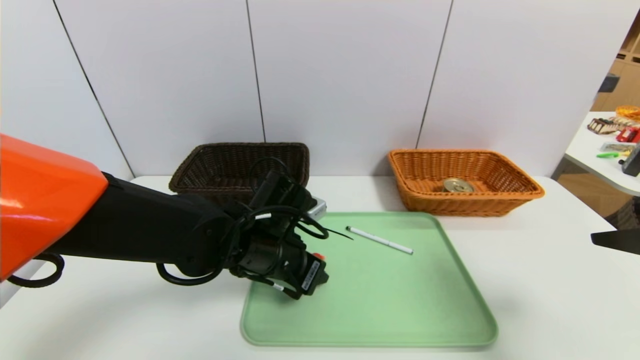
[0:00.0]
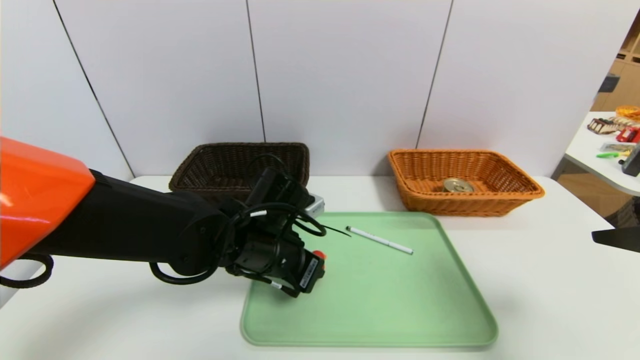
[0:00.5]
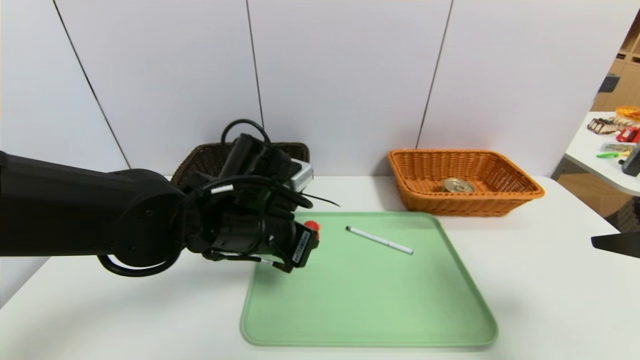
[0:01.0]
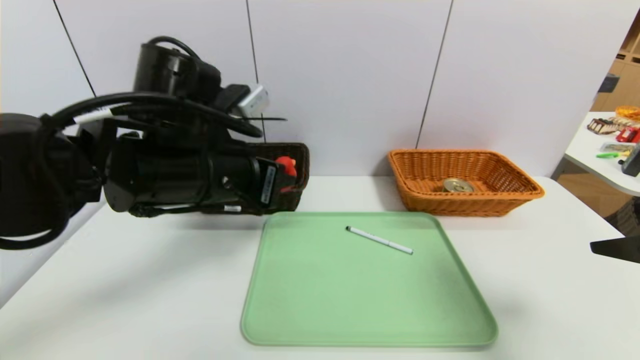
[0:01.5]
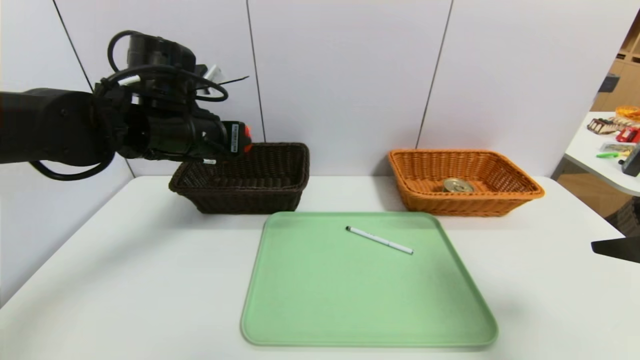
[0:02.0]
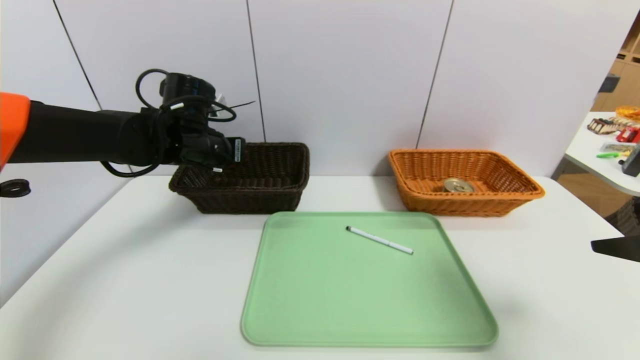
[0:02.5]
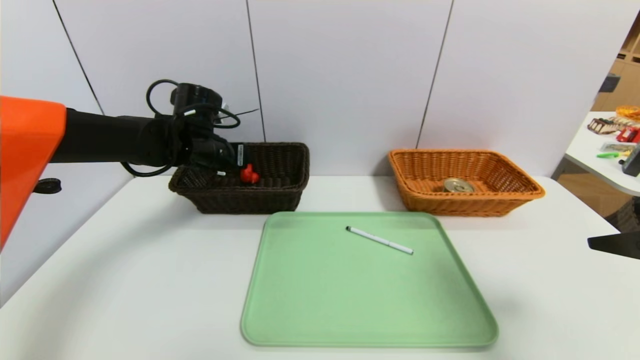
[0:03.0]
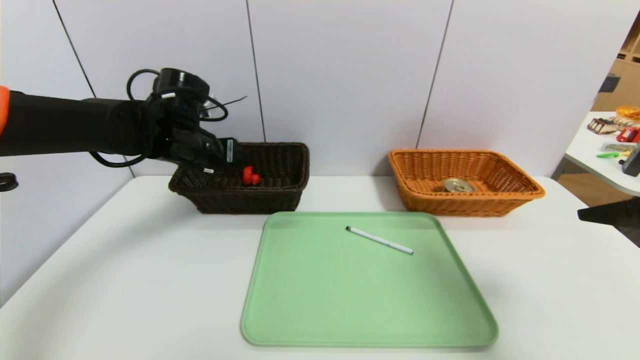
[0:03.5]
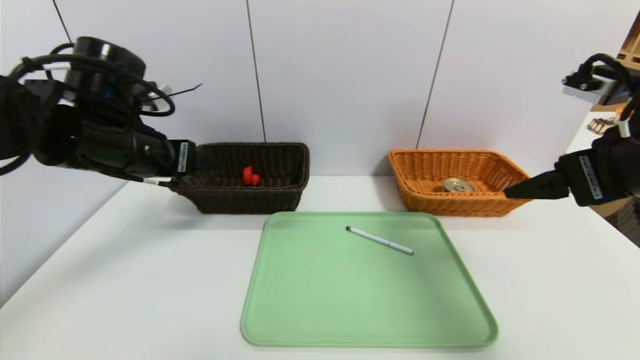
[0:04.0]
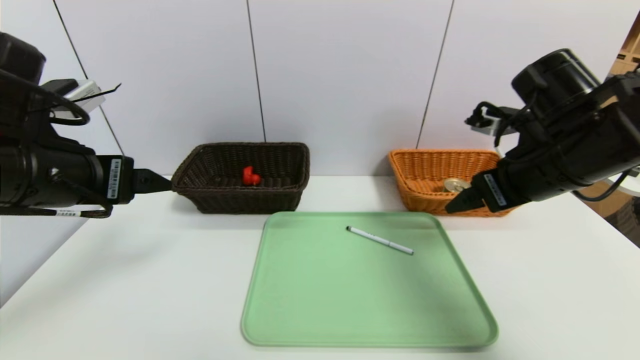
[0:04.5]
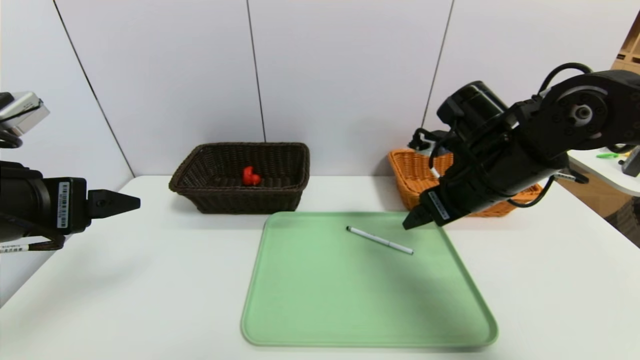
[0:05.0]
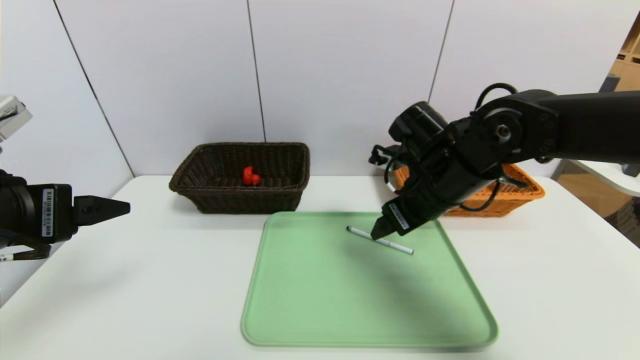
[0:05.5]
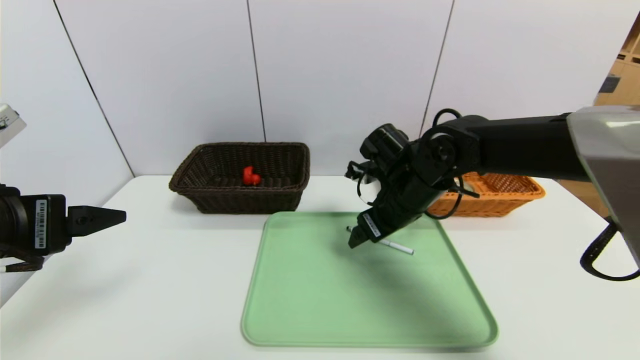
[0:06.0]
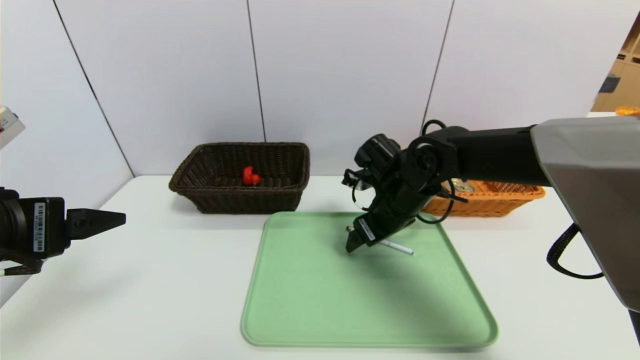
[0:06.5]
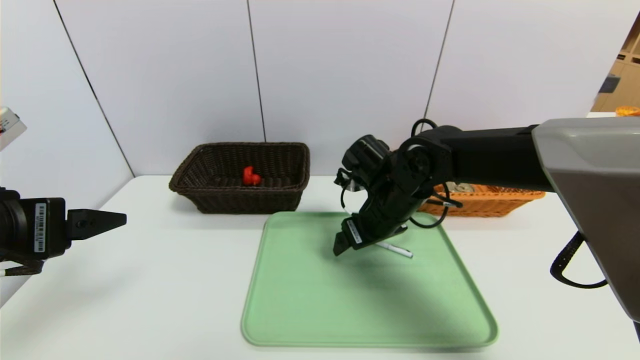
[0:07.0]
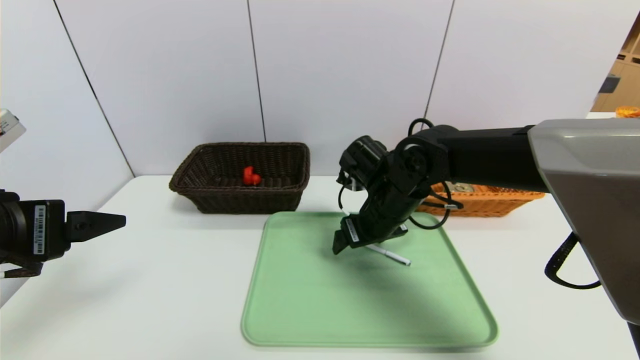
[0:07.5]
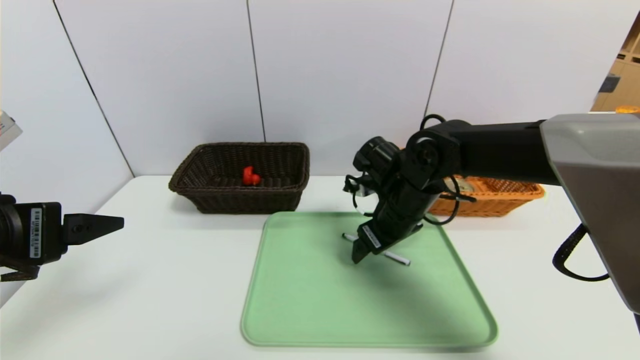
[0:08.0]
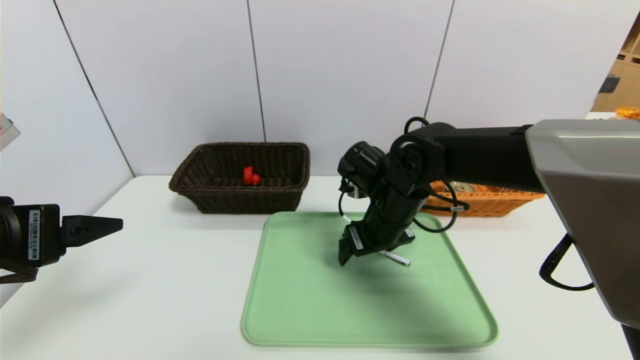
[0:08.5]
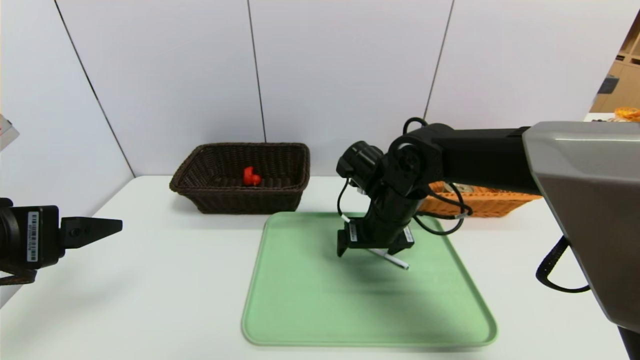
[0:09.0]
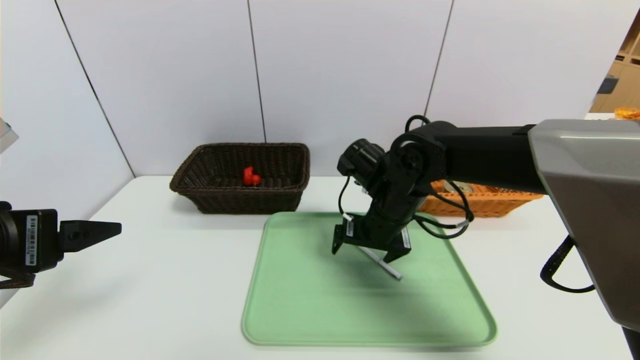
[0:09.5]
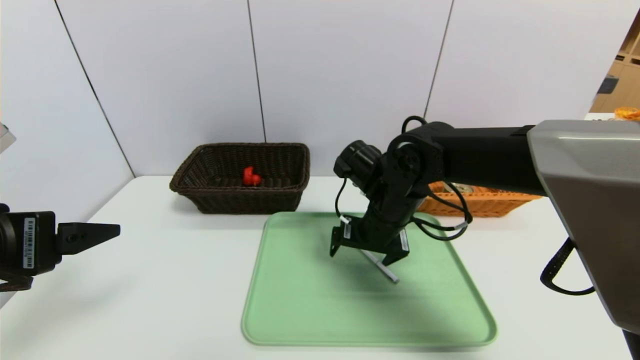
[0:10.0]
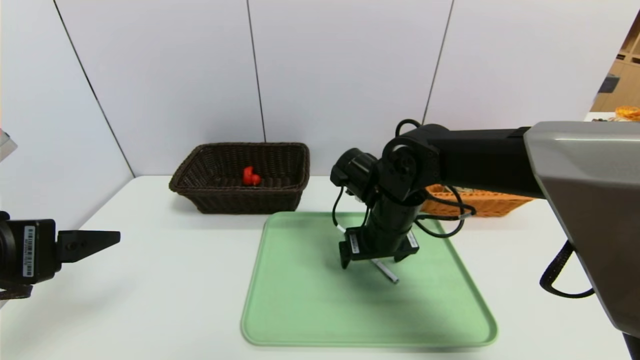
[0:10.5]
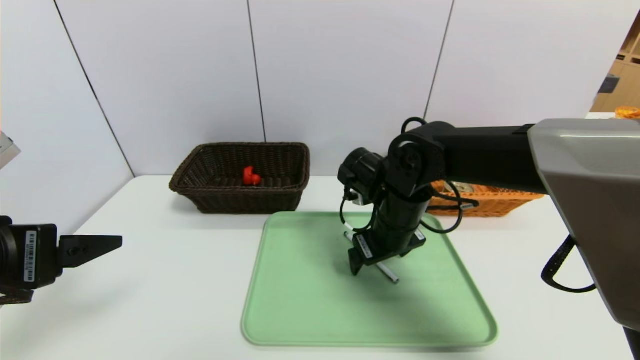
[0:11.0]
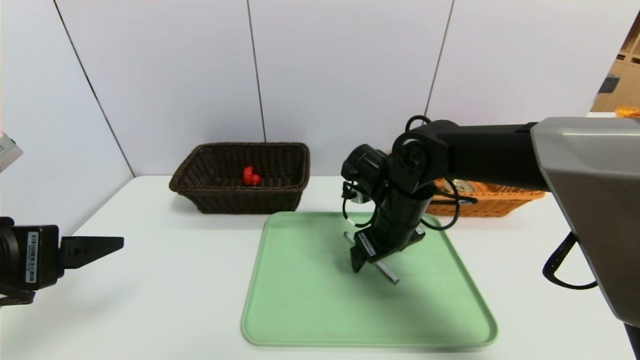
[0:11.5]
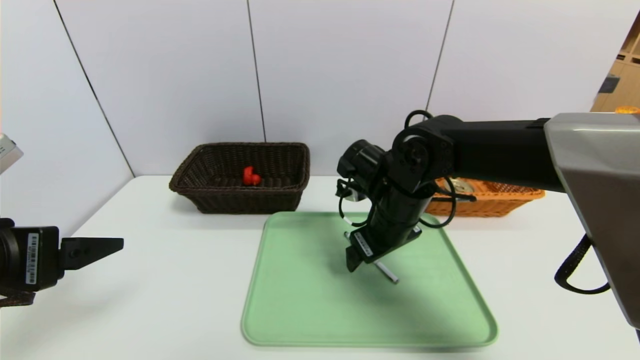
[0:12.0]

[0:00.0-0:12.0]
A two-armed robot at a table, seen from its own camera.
Task of the whole recording: place the food in the right basket with the right gripper, and place the non food items in the left basket with the left gripper.
Step, 0:00.0 to 0:03.0: Grasp the red duck and put it in the left basket.
0:00.0 to 0:02.0: The left gripper travels upward, to the left and forward by some 20 cm.
0:02.0 to 0:04.0: The left gripper is displaced to the left by roughly 5 cm, and opens up. The right gripper shifts roughly 10 cm forward.
0:04.0 to 0:06.0: The left gripper heads backward, covering roughly 15 cm. Meanwhile the right gripper travels to the left, forward and downward by approximately 25 cm.
0:06.0 to 0:08.0: The grippers move only a little.

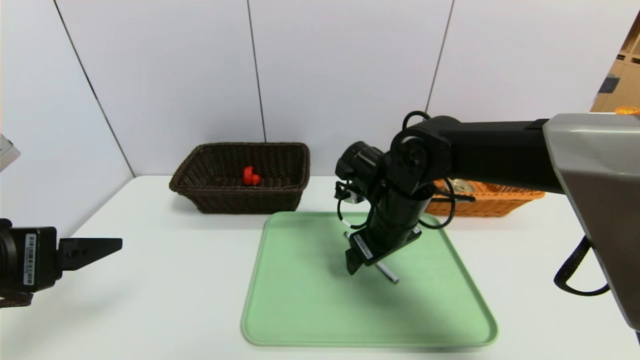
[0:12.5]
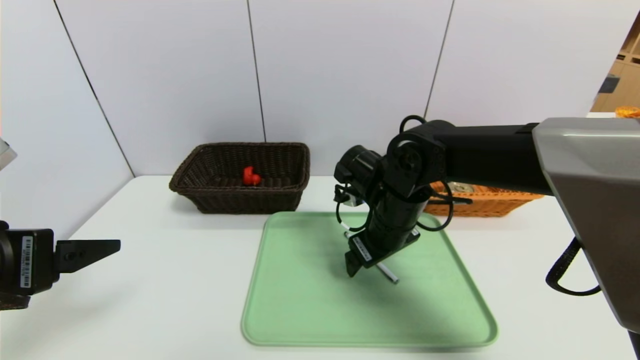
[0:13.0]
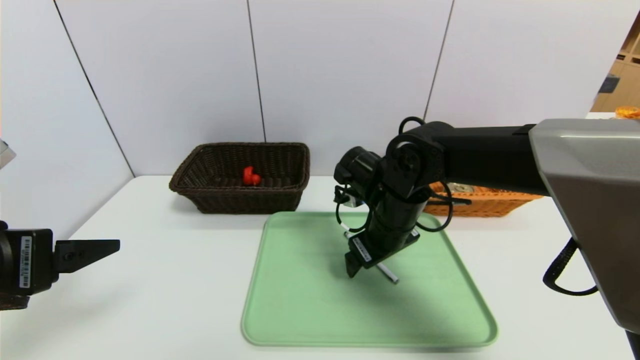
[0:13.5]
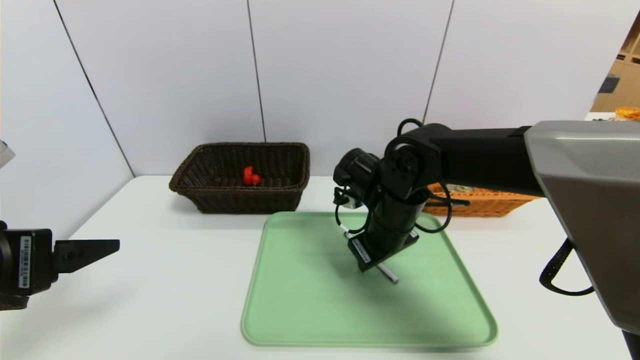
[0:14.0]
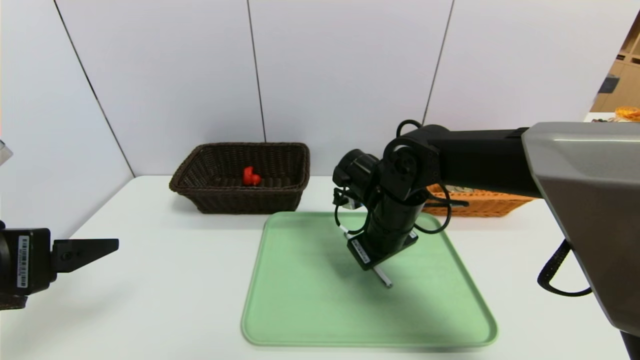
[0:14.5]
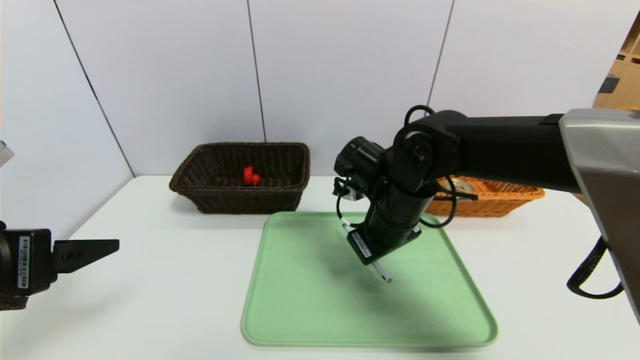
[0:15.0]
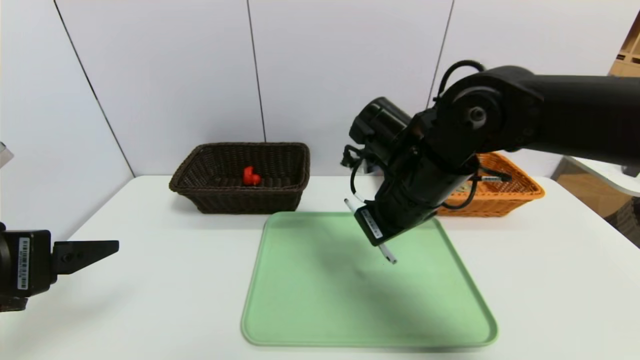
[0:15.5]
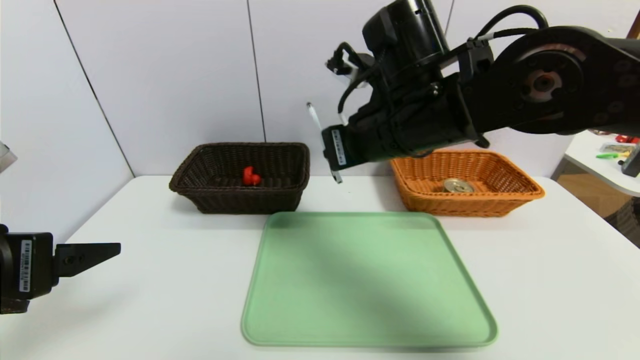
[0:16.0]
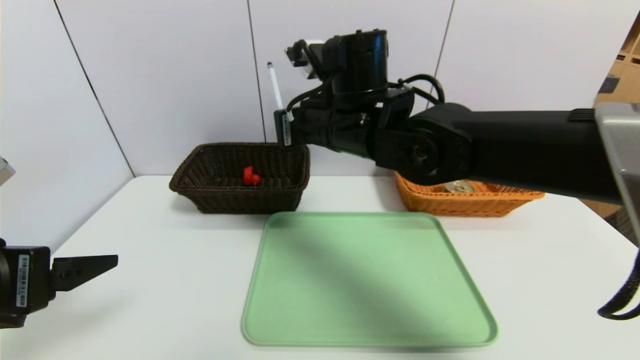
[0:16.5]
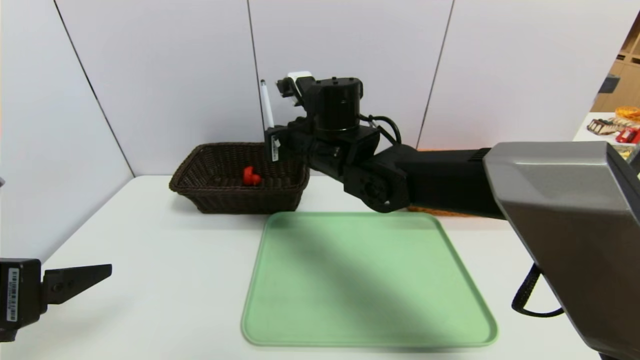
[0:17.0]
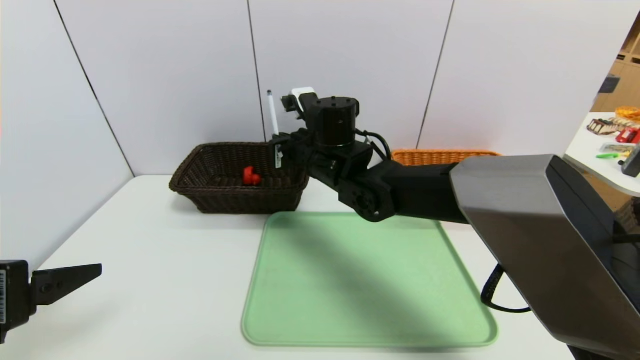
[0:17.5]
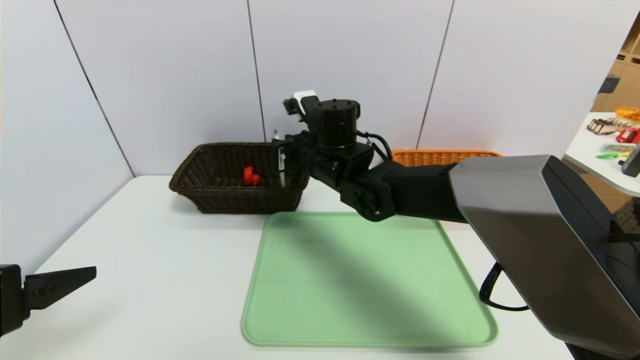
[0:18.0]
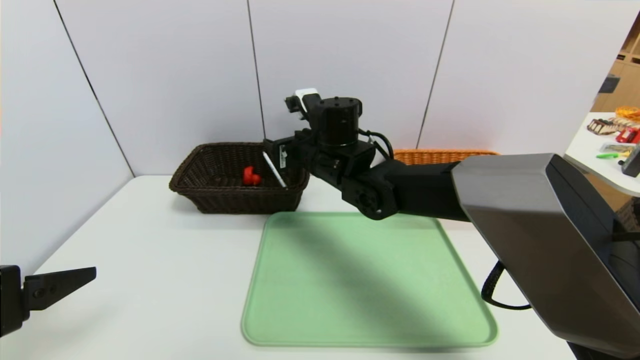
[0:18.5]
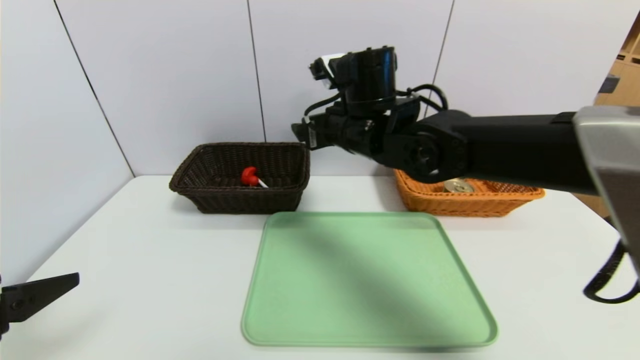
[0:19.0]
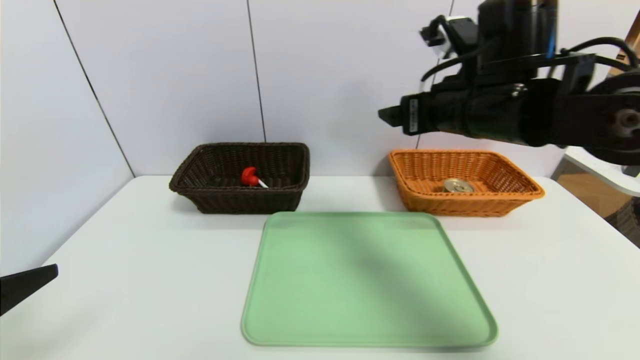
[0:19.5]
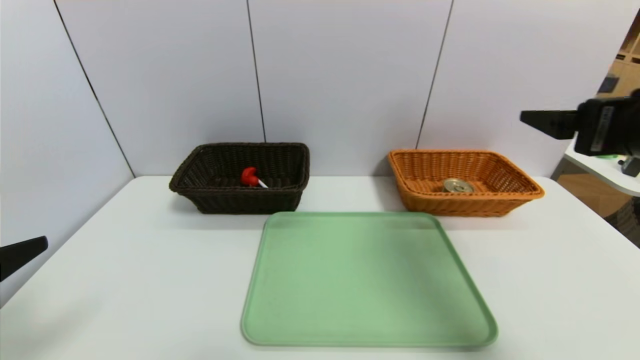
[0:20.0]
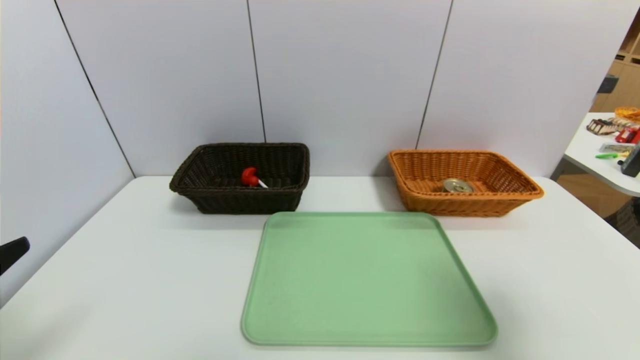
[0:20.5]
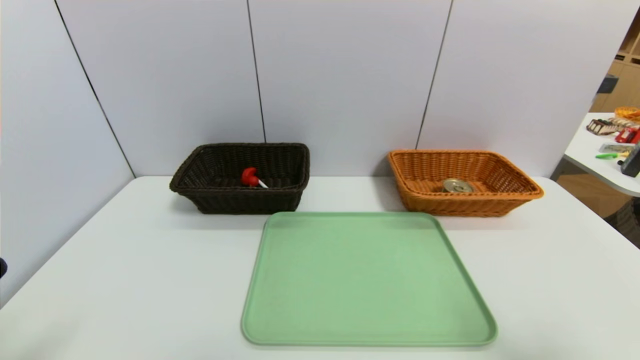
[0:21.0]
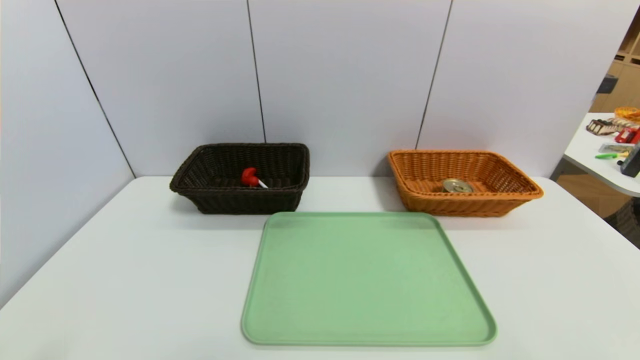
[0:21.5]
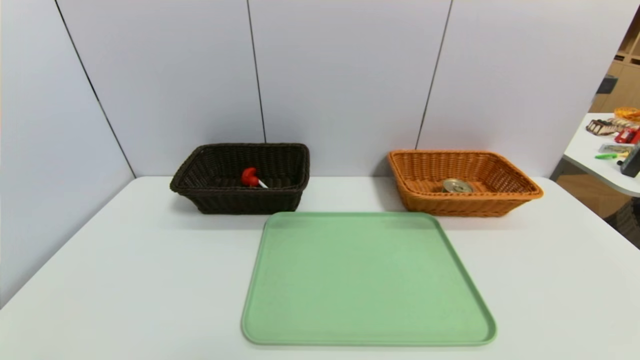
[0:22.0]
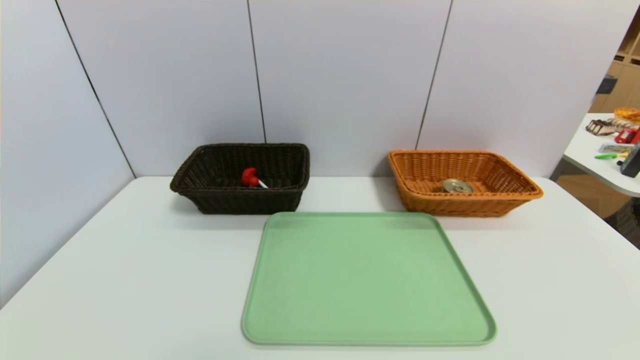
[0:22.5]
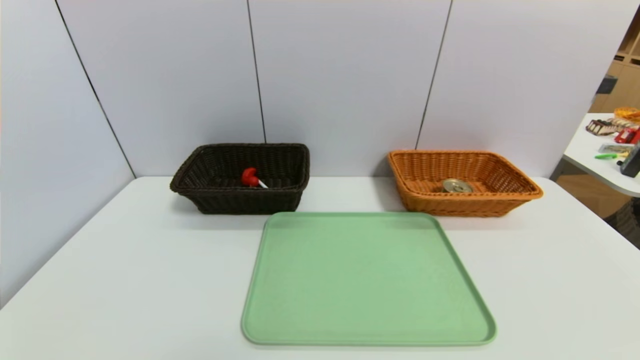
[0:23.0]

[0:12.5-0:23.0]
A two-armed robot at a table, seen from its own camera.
Task of the whole recording: place the food in the right basket with the right gripper, and place the non food items in the left basket with the left gripper.
0:12.5 to 0:14.5: The right gripper closes.
0:14.5 to 0:16.5: The right gripper shifts roughly 15 cm upward and to the left.
0:16.5 to 0:19.0: The right gripper travels downward and back again, about 10 cm each way, and opens its fingers.
0:19.0 to 0:21.0: The right gripper heads backward and to the right, covering roughly 40 cm. The left gripper shifts some 5 cm backward.
0:21.0 to 0:23.0: The right gripper is displaced backward and downward by about 15 cm.
